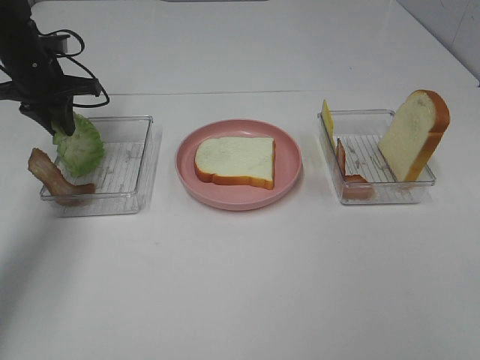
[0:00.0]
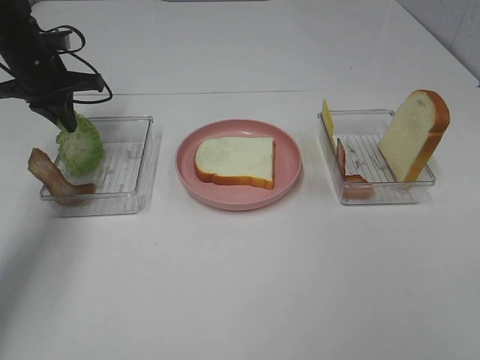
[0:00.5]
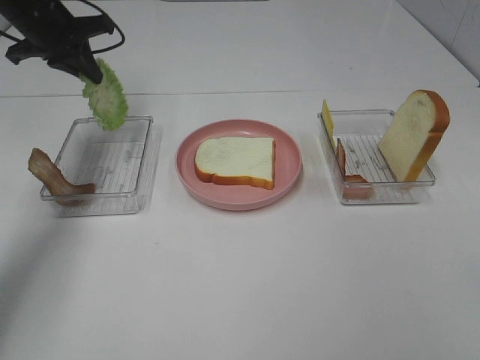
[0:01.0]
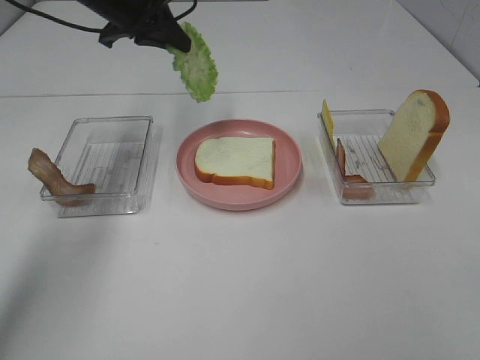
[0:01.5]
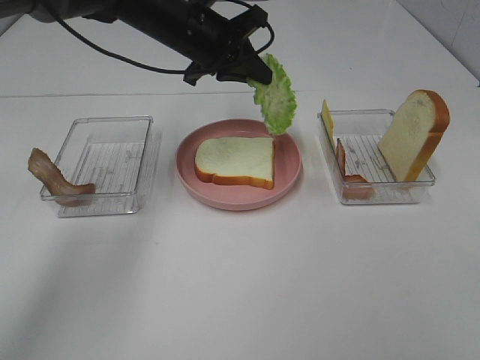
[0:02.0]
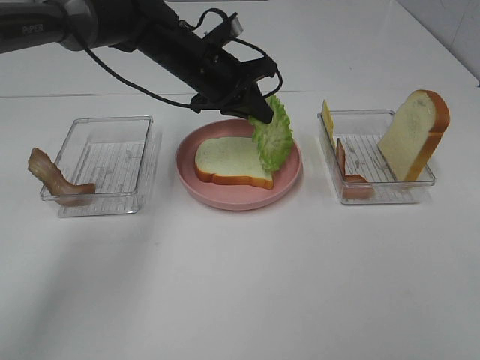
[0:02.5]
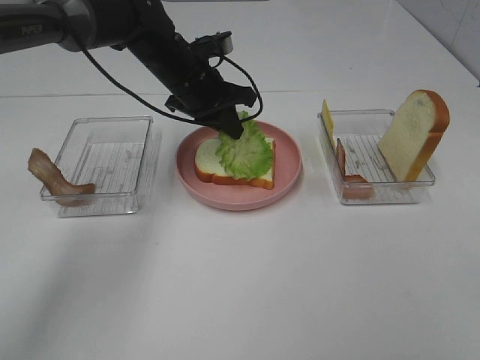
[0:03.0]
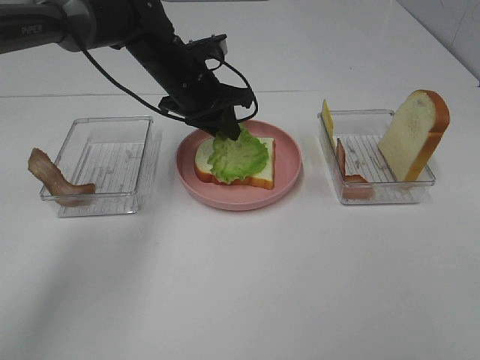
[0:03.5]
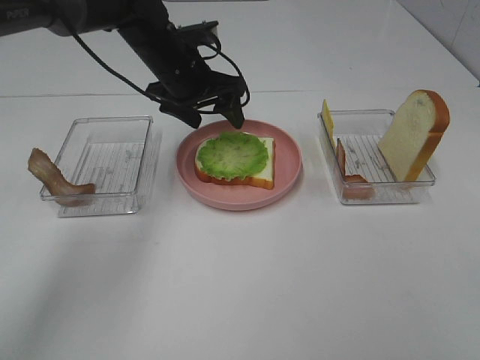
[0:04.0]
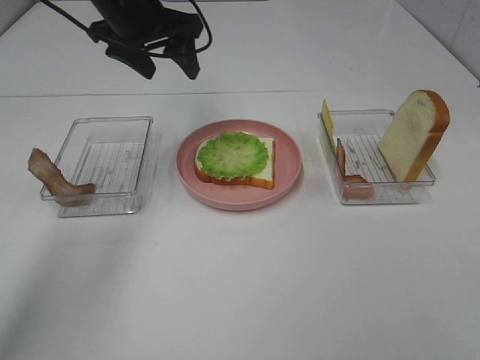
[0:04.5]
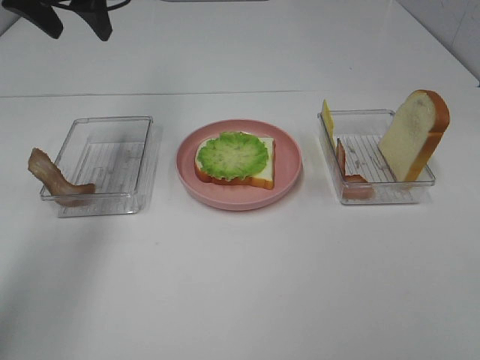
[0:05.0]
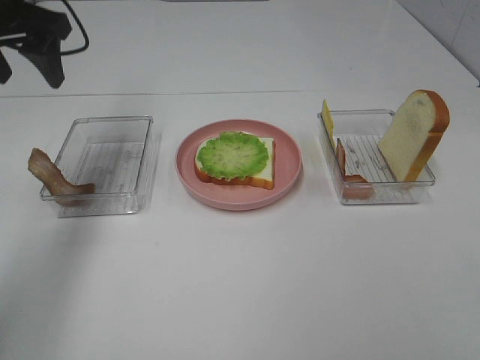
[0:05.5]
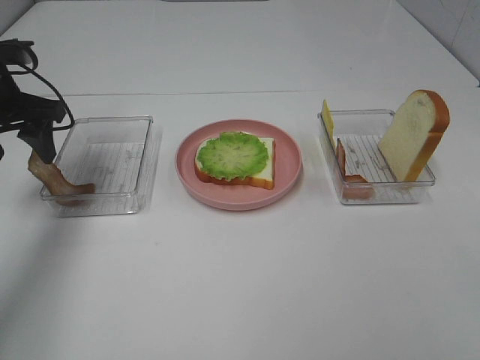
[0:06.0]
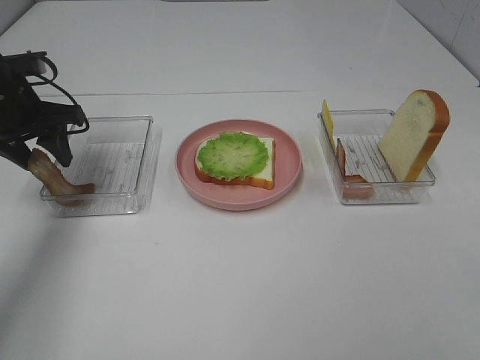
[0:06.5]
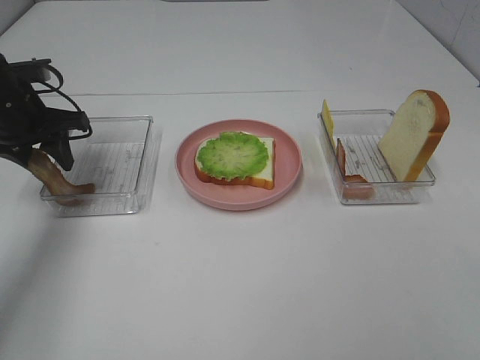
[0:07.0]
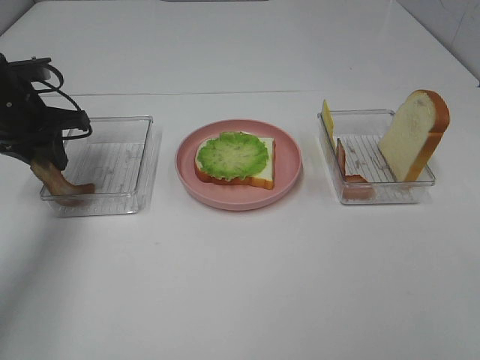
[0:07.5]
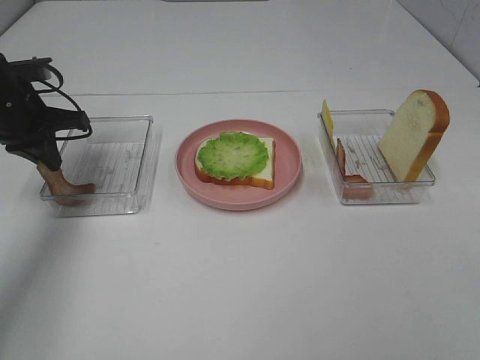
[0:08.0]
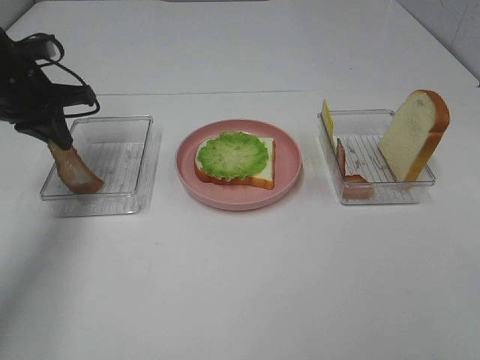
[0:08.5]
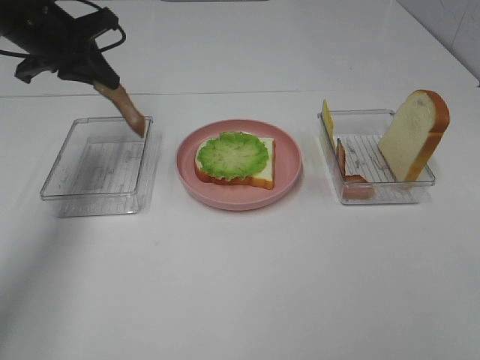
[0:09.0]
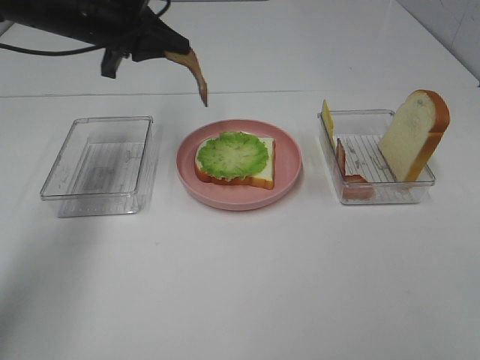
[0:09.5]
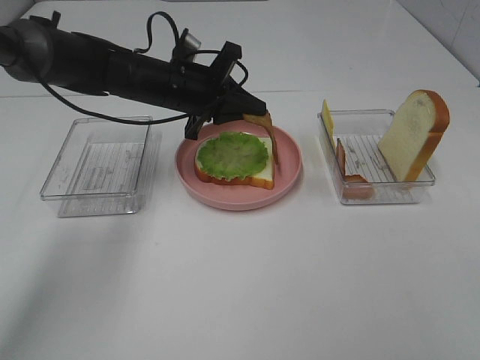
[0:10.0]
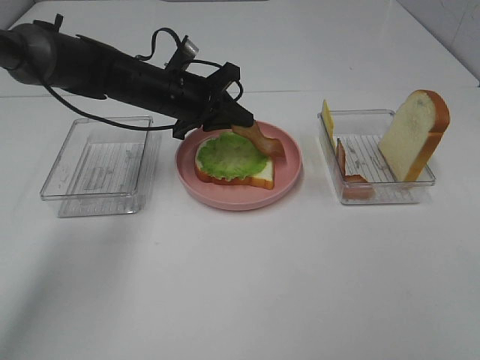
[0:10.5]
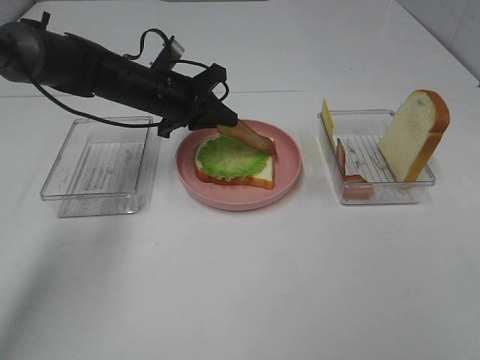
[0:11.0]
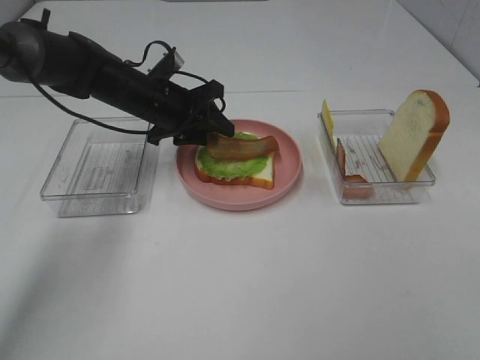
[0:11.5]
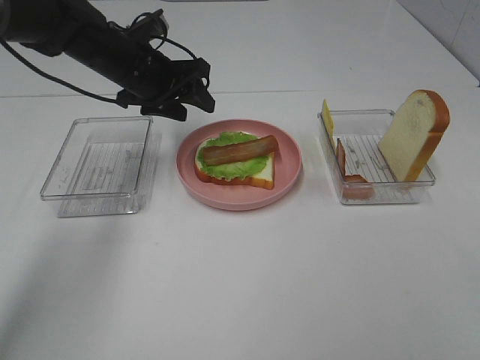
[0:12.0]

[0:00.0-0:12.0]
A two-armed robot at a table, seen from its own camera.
Task of the whole recording: Make sandwiches.
Step, 0:01.0 to 0:04.0: Left hand:place the lettuce slice on the bread slice.
Step, 0:04.5 to 0:08.5: Left hand:grab the bacon.
0:00.0 to 0:02.0: The left gripper moves to the right, about 20 cm.
0:02.0 to 0:04.0: The left gripper opens up.
0:04.0 to 0:06.0: The left gripper heads to the left and backward, covering some 20 cm.
0:06.0 to 0:08.0: The left gripper closes.
0:08.0 to 0:10.0: The left gripper travels to the right by approximately 20 cm.
0:10.0 to 0:12.0: The left gripper goes about 5 cm to the left, and opens its fingers.

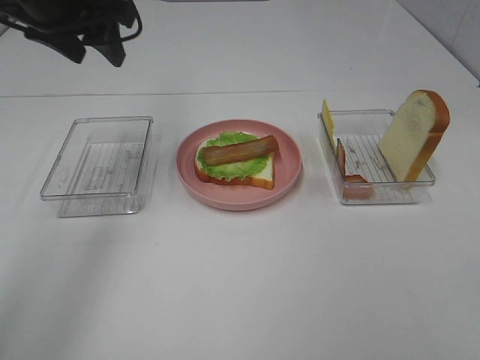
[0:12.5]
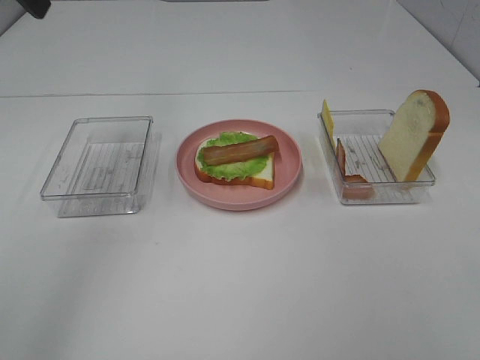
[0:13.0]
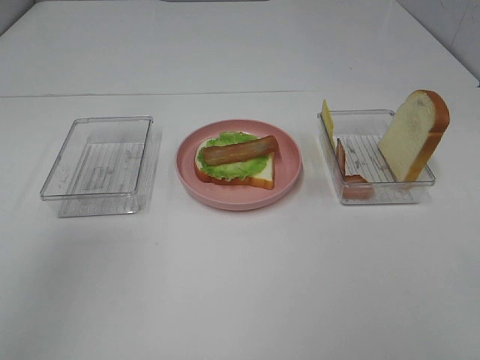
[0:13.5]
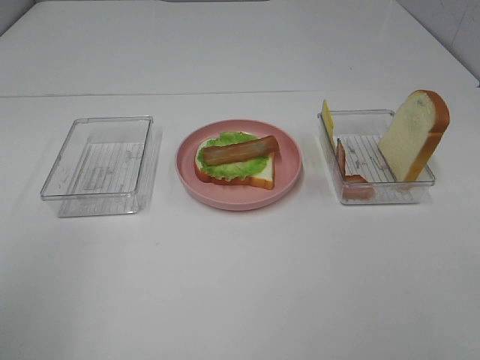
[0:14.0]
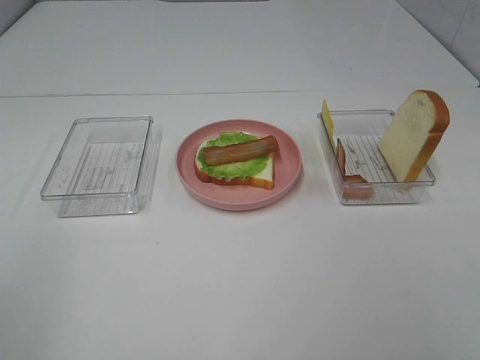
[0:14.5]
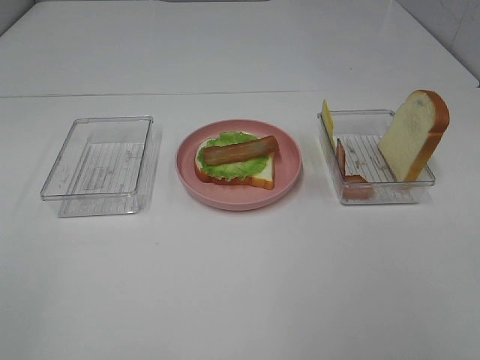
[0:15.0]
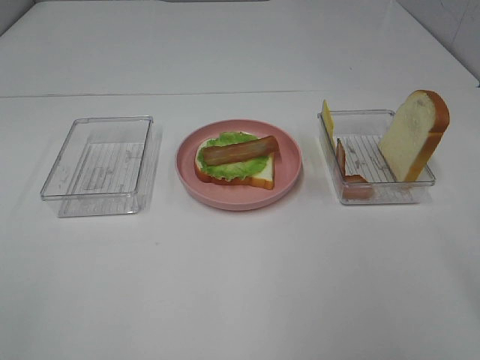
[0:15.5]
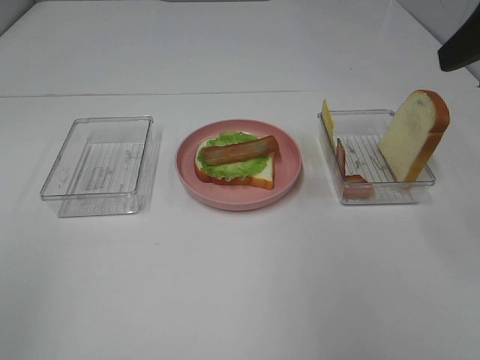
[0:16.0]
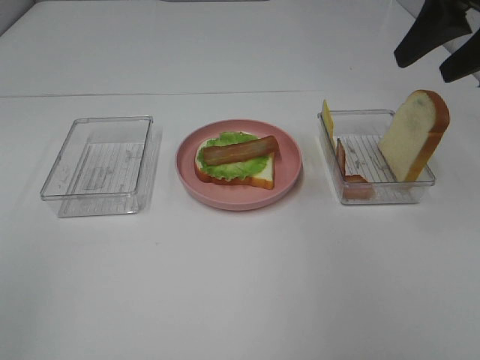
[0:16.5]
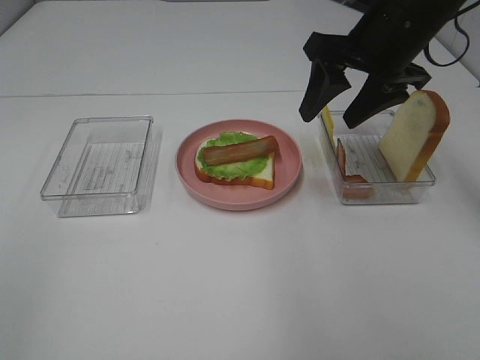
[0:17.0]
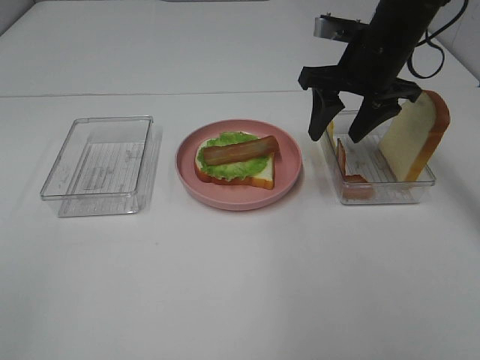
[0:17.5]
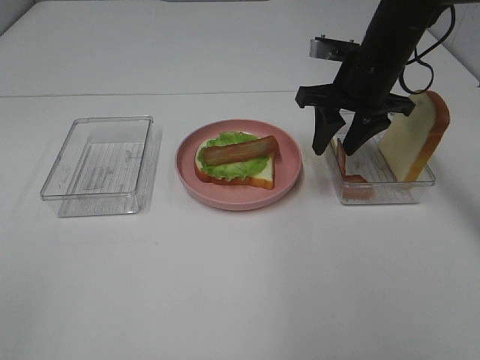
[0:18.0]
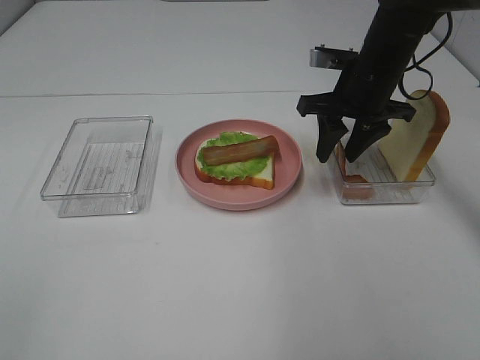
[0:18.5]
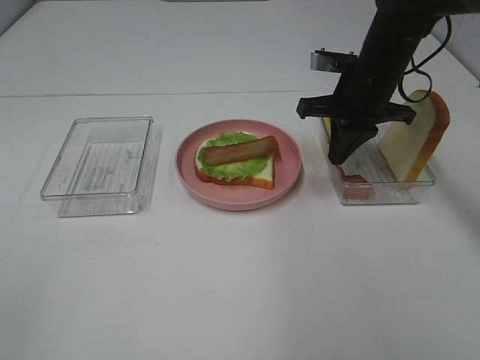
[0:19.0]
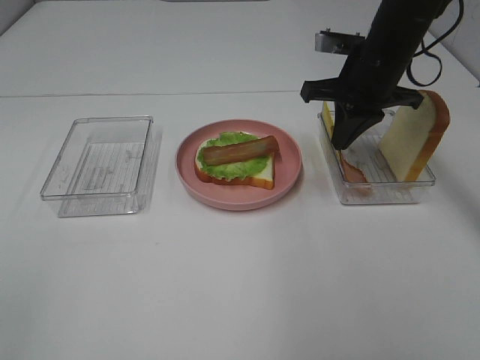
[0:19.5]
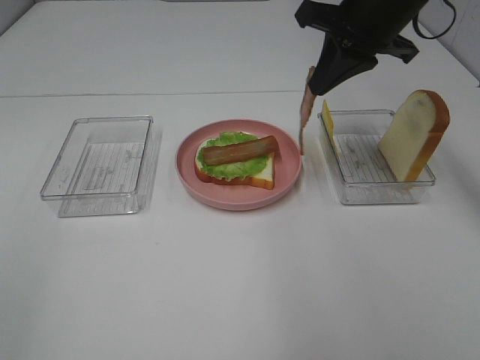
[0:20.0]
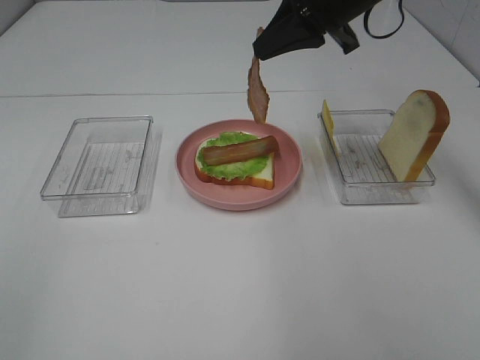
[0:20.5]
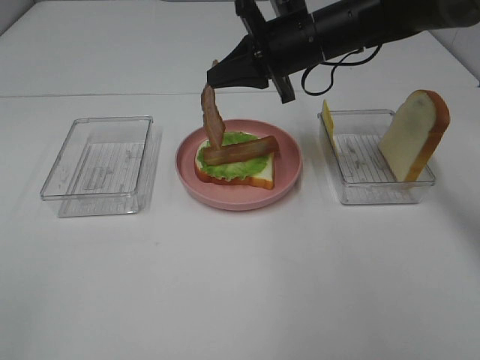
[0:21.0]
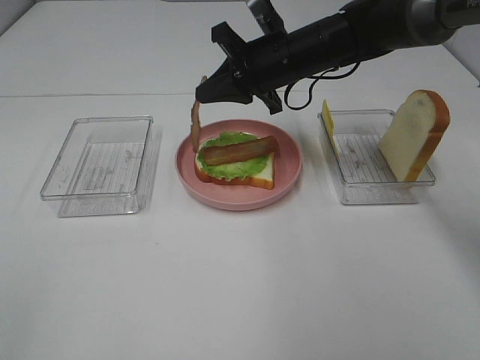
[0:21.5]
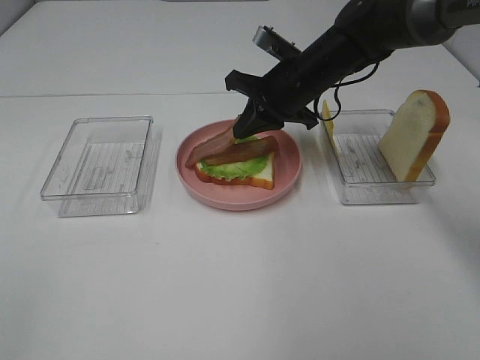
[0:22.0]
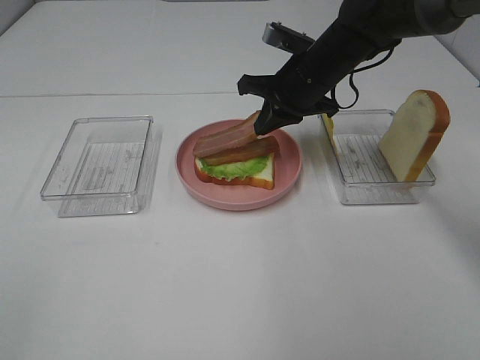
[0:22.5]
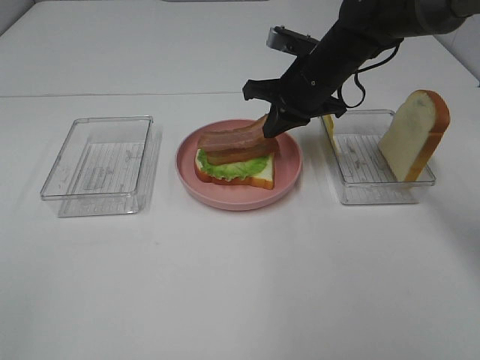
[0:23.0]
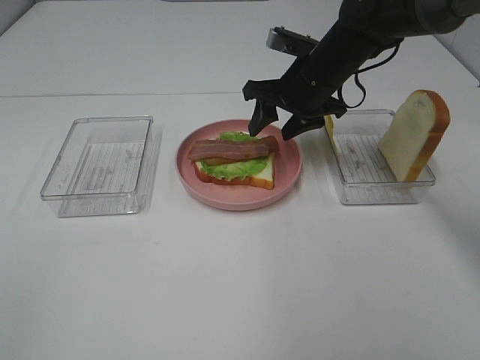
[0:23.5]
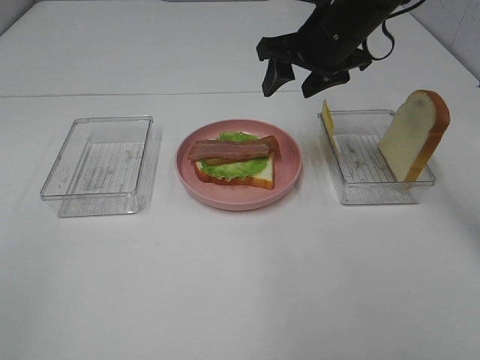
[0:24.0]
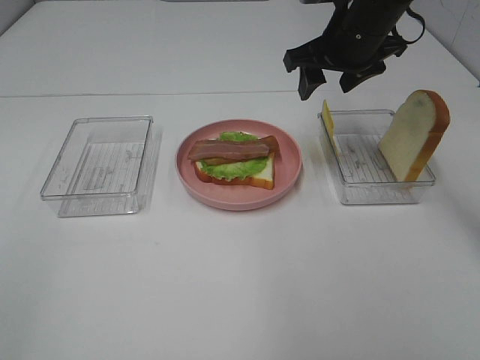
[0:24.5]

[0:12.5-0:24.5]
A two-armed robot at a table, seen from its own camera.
Task of the whole recording: Make sandwiches.
Step, 0:12.5 to 0:18.5: Right hand:grab the bacon.
Step, 0:19.0 to 0:23.0: Right hand:place bacon on bacon.
0:12.5 to 0:14.5: The left gripper goes some 35 cm backward.
0:14.5 to 0:16.5: The right gripper travels forward by roughly 35 cm.
0:16.5 to 0:18.5: The right gripper travels downward, forward and to the left by about 20 cm.
0:18.5 to 0:20.5: The right gripper shifts about 10 cm upward, and closes.
0:20.5 to 0:22.5: The right gripper shifts about 10 cm downward.
0:22.5 to 0:24.5: The right gripper moves upward, about 5 cm, and opens up.

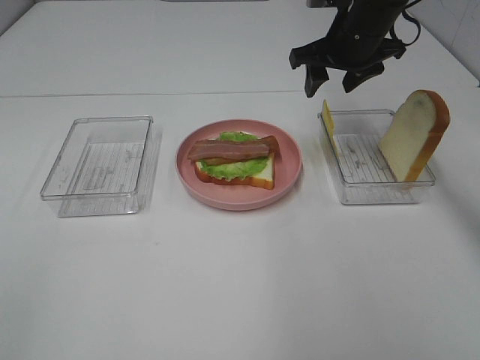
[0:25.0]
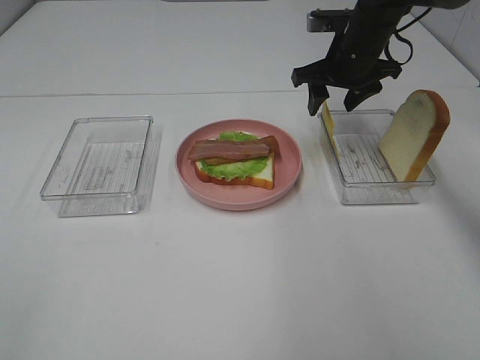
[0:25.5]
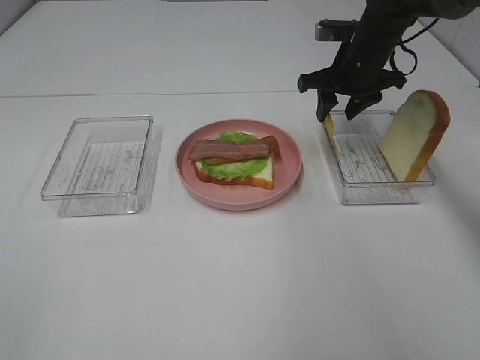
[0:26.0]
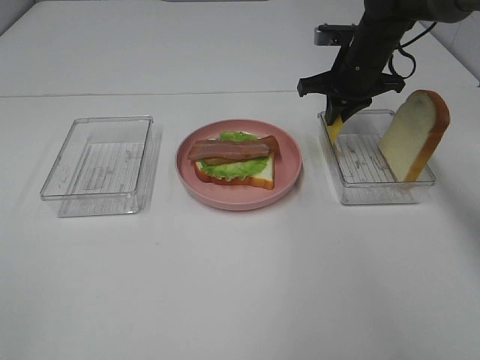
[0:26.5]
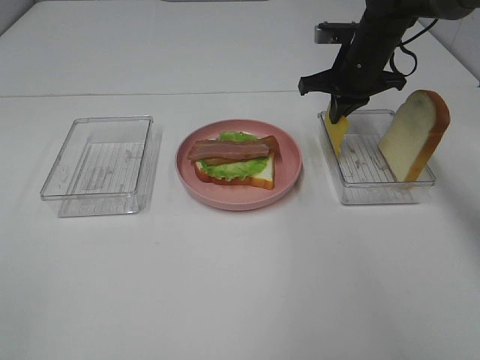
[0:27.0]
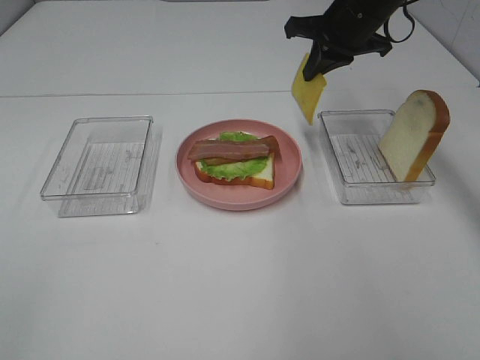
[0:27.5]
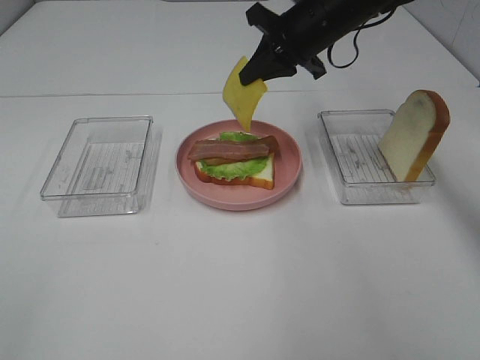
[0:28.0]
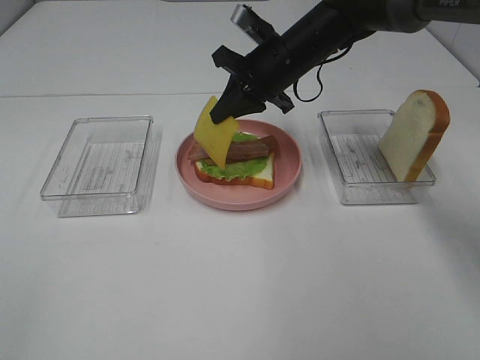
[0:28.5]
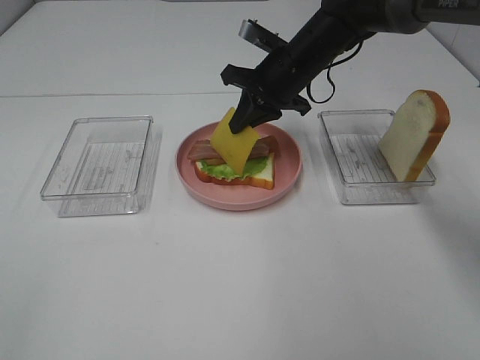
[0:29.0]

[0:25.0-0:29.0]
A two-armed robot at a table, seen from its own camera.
Task of the whole recording: Make sandwiches.
0:25.0 to 0:27.0: The right gripper moves approximately 5 cm, and closes up.
0:27.0 to 0:29.0: The right gripper heads to the left, covering approximately 10 cm.
